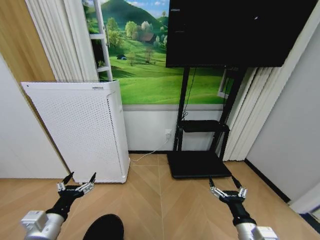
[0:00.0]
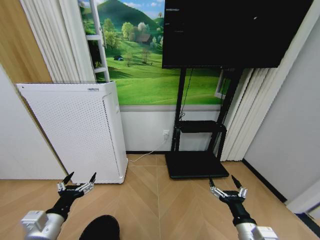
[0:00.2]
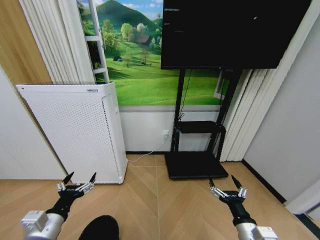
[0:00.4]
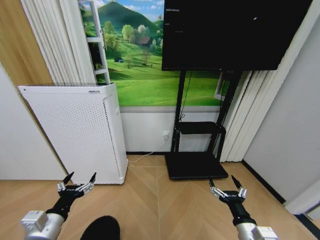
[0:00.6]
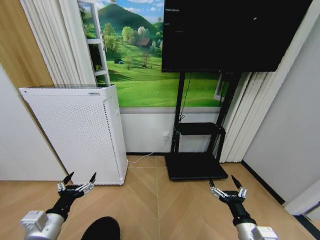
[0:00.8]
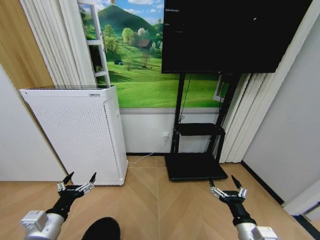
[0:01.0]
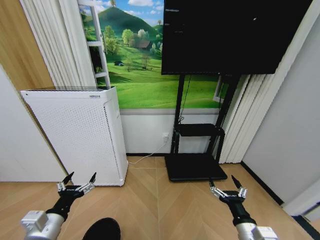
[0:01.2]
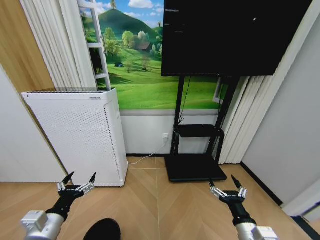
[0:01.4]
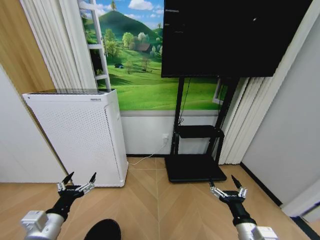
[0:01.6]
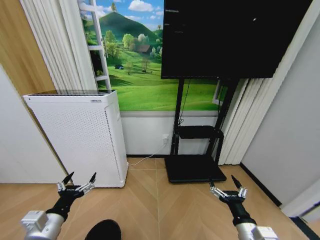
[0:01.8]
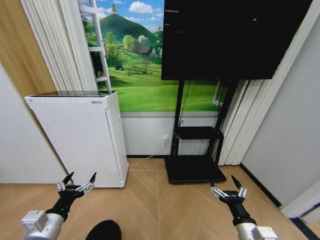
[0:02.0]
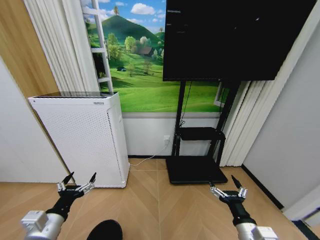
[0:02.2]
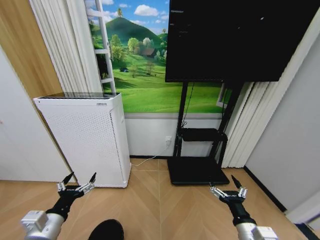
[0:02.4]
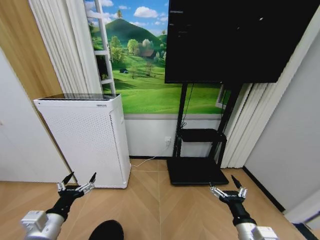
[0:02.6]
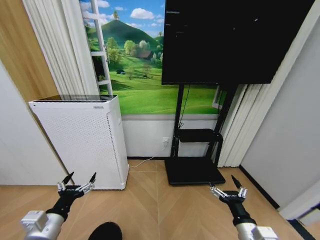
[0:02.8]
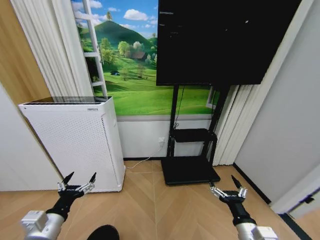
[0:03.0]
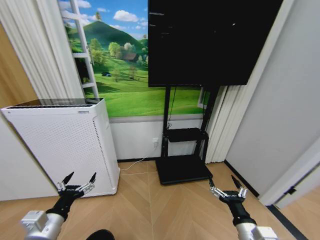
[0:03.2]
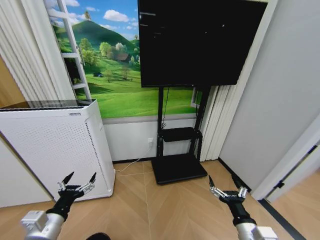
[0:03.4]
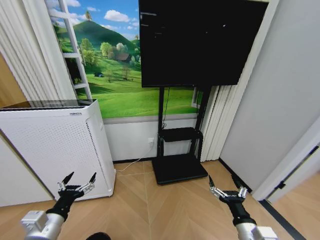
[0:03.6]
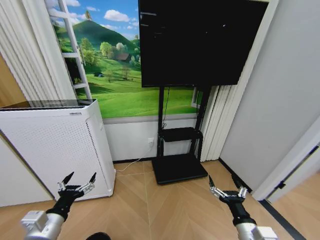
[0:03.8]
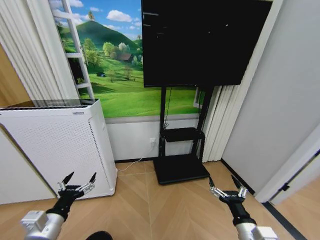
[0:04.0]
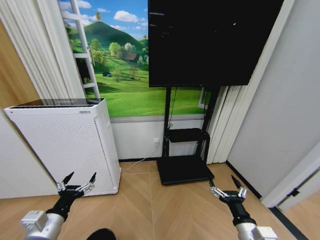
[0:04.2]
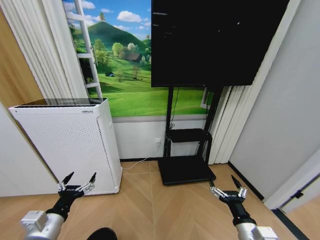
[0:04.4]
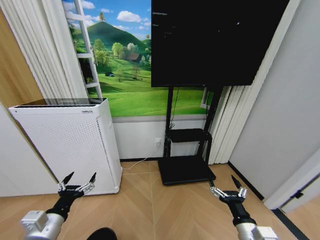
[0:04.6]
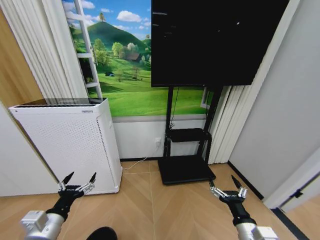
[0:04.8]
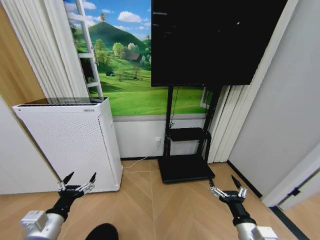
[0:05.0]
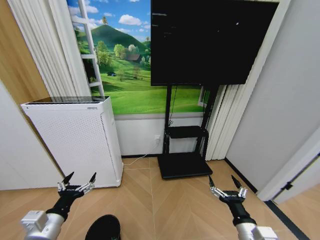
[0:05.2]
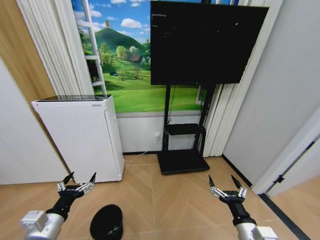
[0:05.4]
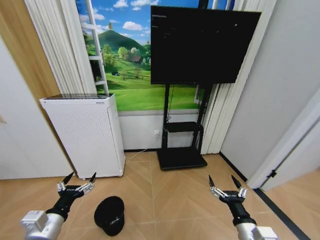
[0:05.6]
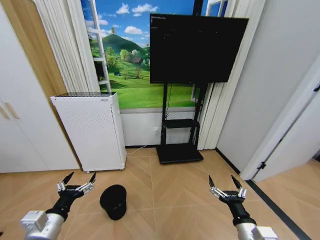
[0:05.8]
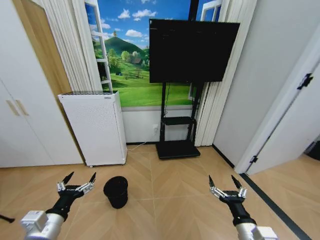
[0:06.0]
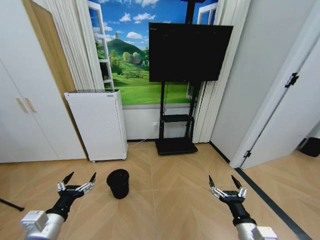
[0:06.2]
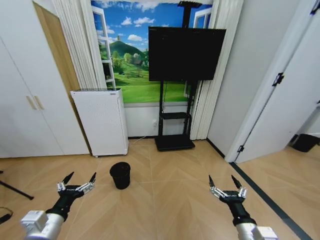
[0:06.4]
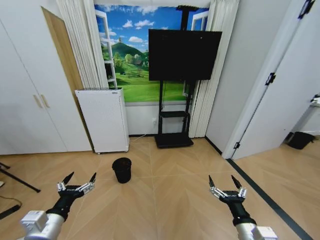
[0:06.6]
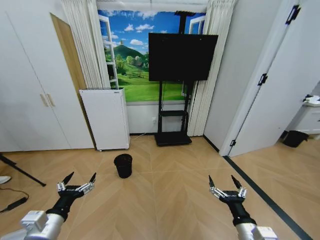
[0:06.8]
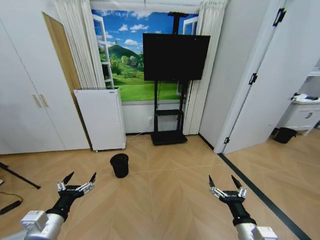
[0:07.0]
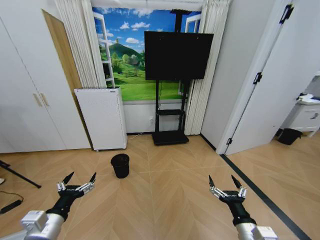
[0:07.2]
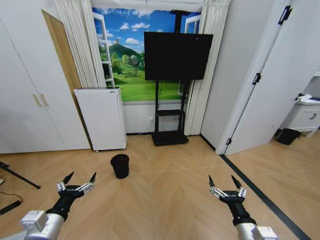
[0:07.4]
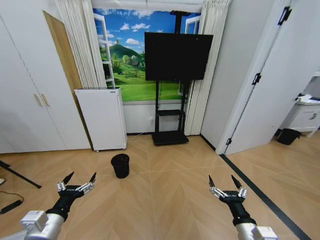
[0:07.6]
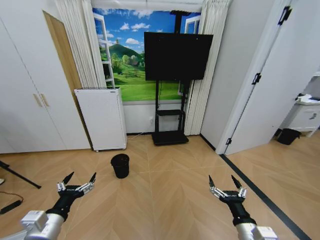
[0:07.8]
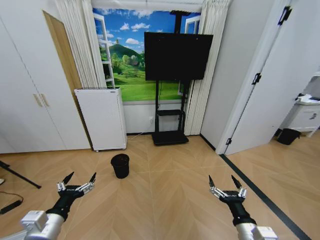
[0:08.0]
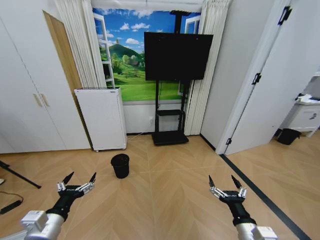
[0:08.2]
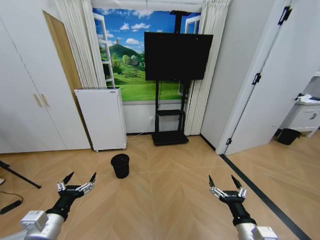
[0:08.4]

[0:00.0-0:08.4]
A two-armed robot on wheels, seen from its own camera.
Task of the whole recording: Pick up the trash bin and place the garbage on the floor into it.
0:01.4 to 0:02.8: Neither gripper changes place.
0:07.0 to 0:08.4: The two grippers keep their place.

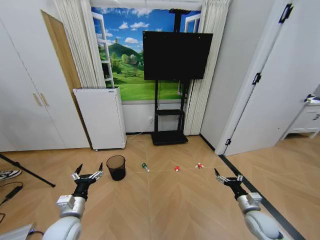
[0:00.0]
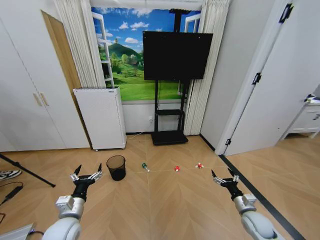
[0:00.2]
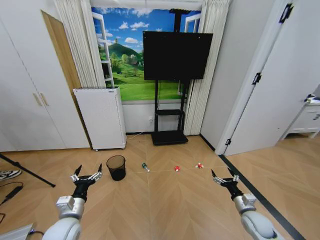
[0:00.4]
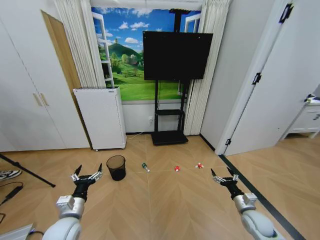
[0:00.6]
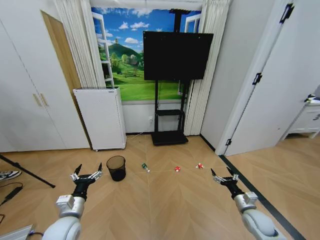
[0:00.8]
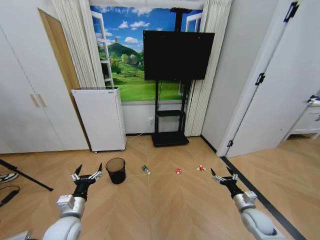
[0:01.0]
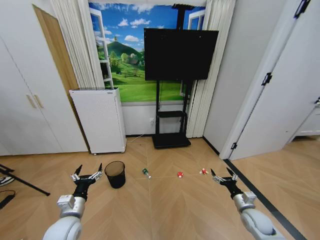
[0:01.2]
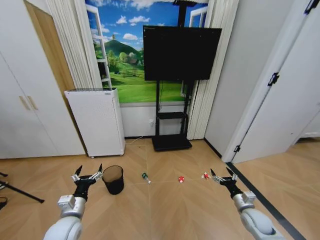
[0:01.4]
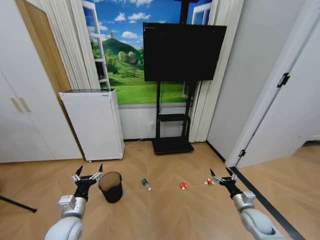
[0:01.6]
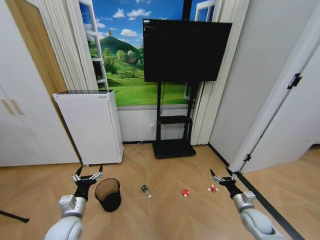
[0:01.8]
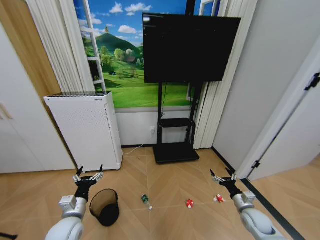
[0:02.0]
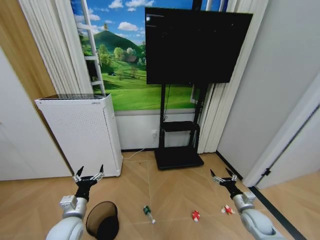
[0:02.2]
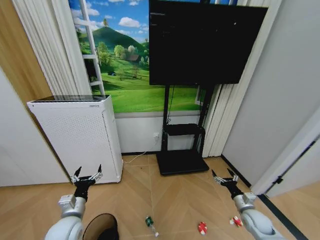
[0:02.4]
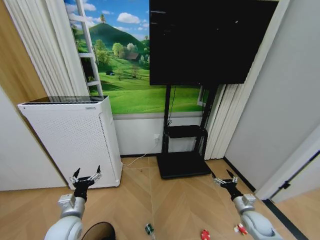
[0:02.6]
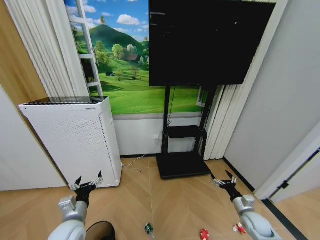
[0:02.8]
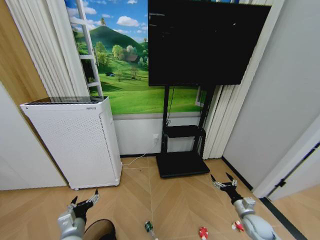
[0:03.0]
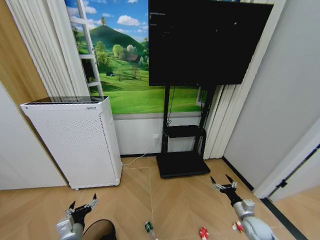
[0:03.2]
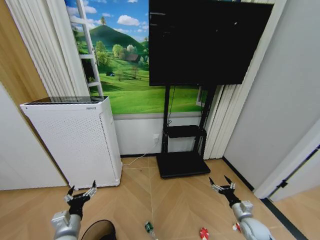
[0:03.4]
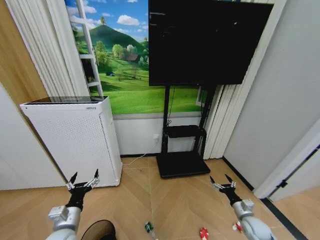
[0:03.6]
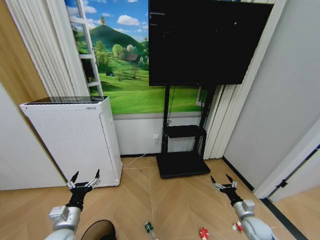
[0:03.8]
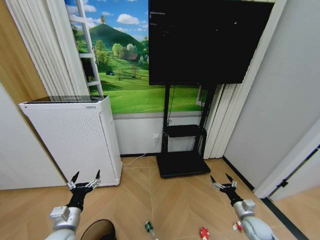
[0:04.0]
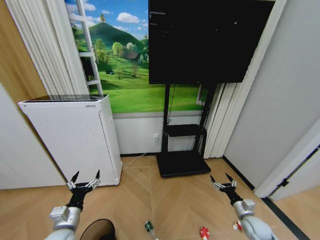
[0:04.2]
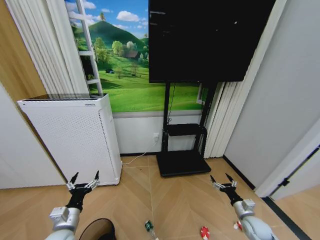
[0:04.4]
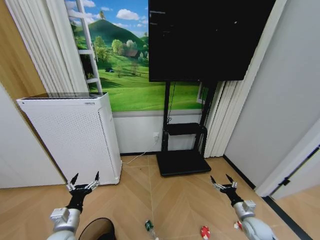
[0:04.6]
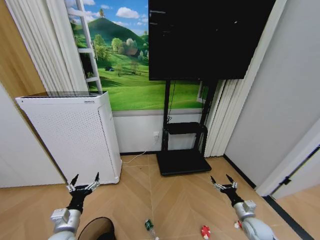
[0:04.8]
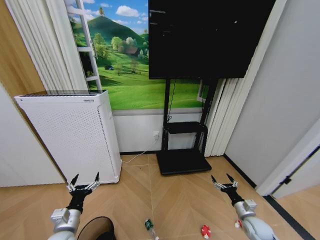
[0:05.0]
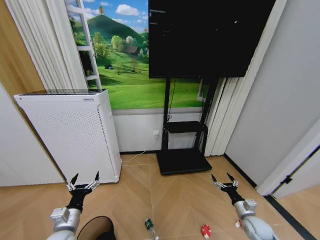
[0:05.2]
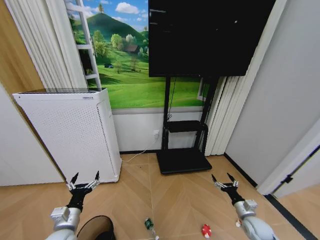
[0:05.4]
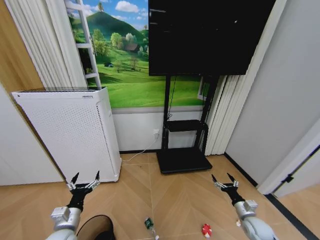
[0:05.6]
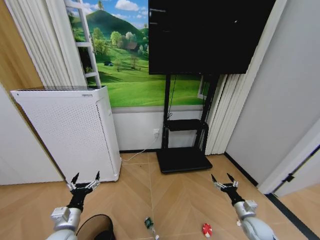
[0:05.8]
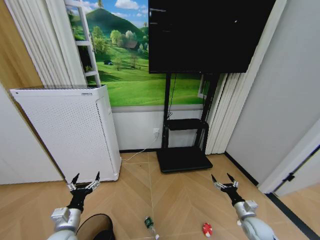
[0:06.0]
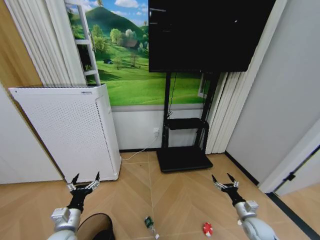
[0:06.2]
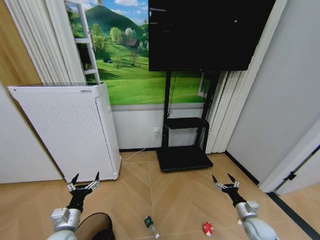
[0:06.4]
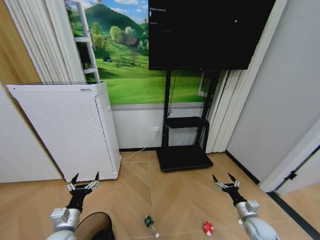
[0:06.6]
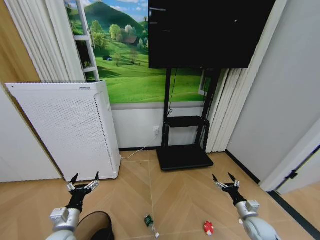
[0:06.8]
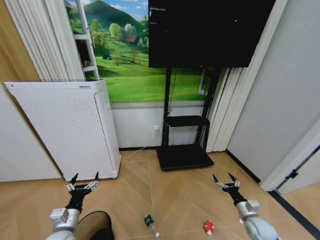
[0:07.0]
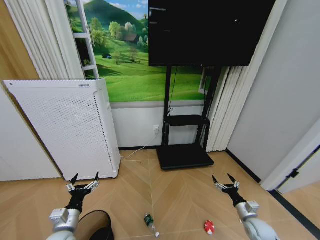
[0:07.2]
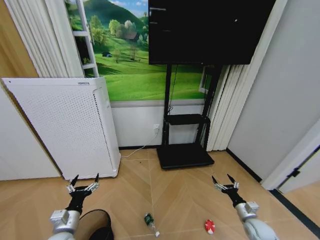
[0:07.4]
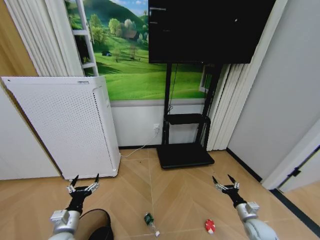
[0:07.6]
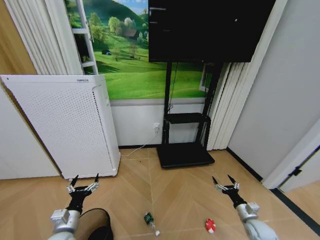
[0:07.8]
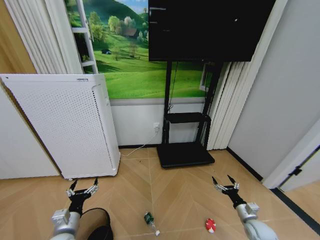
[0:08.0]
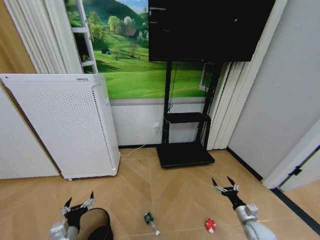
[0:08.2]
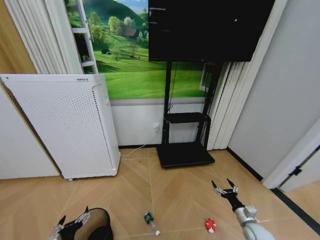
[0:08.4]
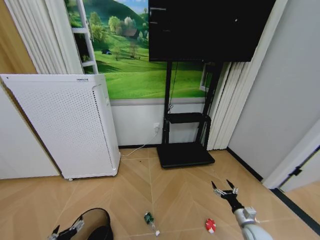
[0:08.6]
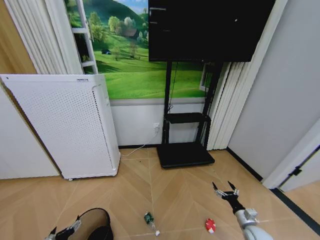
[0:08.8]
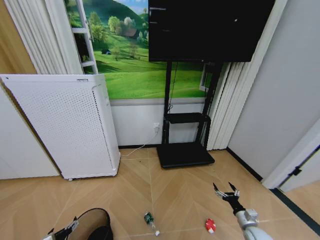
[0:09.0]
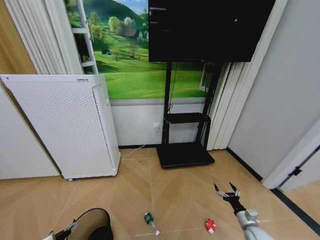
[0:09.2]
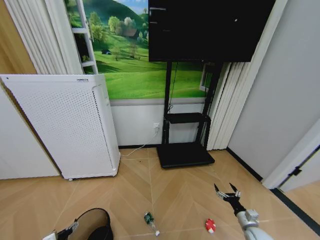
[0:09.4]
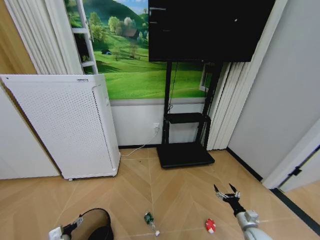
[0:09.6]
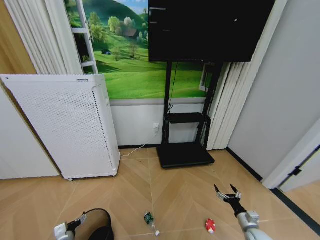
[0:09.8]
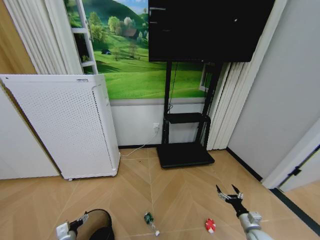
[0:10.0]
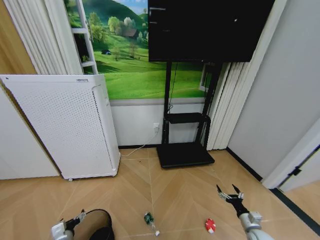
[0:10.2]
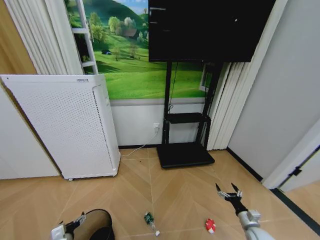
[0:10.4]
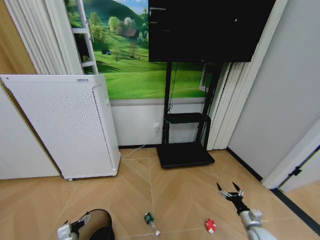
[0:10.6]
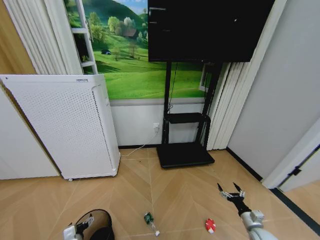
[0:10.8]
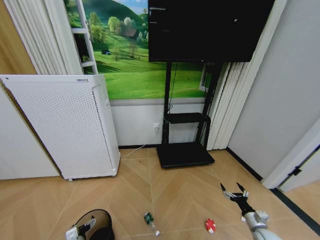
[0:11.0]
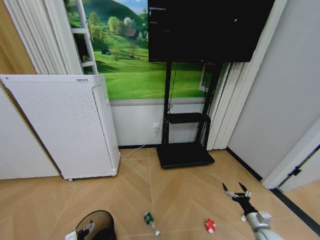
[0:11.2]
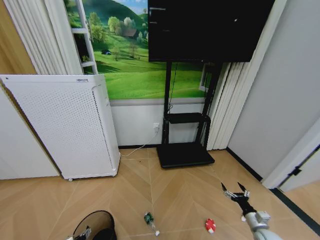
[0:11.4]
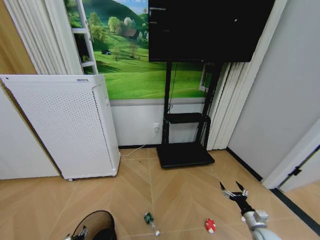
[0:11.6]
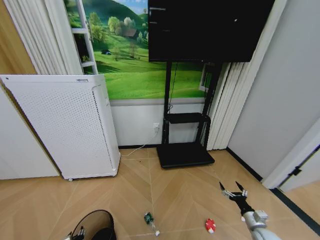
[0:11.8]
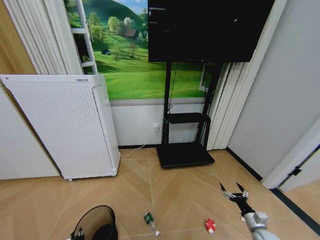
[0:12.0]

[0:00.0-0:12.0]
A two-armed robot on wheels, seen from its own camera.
Task of the whole recording: Pick up the trash bin and place the garbage on the floor into it.
0:04.4 to 0:06.0: The two grippers keep their place.
0:06.0 to 0:07.6: Both grippers stay put.
0:07.6 to 0:09.0: The left gripper heads downward, covering some 10 cm.
0:10.4 to 0:12.0: The left gripper is displaced downward by roughly 5 cm, and closes its fingers.

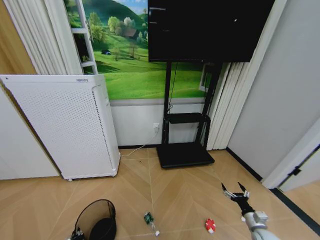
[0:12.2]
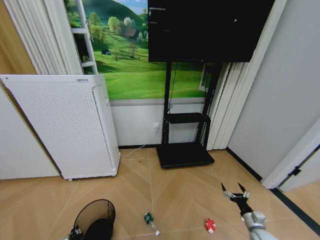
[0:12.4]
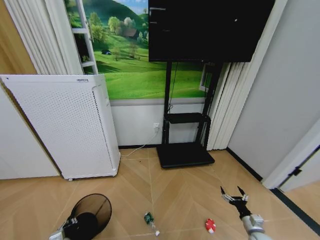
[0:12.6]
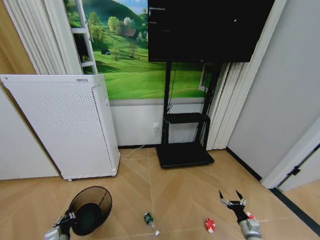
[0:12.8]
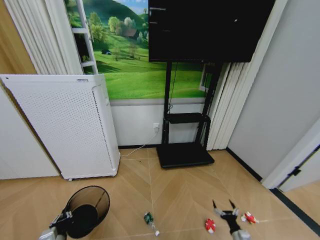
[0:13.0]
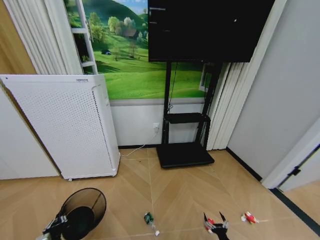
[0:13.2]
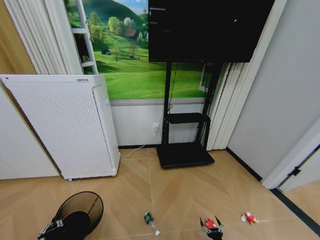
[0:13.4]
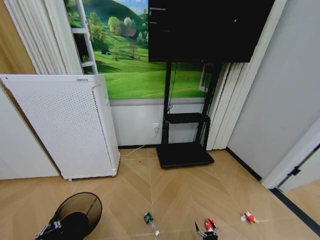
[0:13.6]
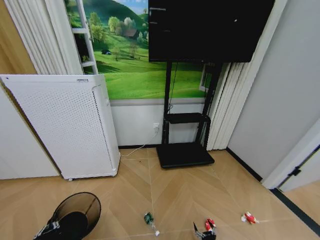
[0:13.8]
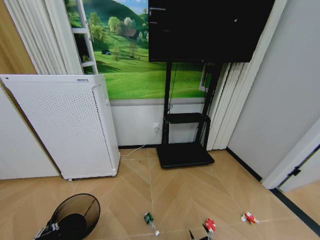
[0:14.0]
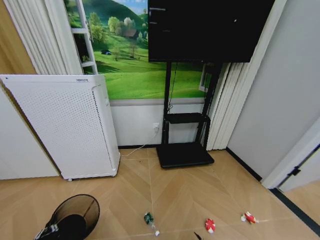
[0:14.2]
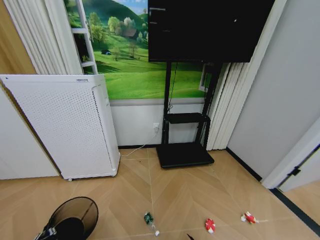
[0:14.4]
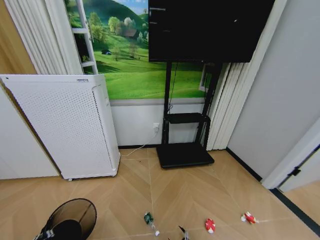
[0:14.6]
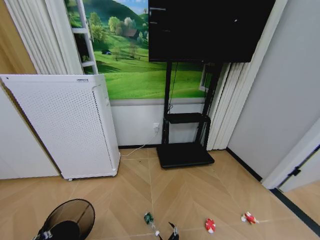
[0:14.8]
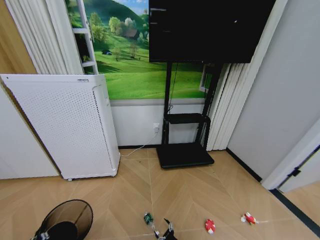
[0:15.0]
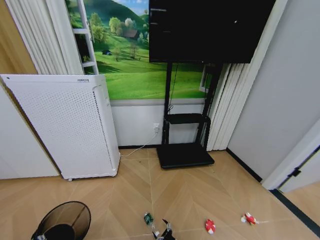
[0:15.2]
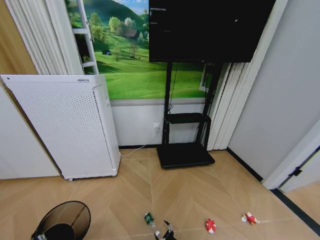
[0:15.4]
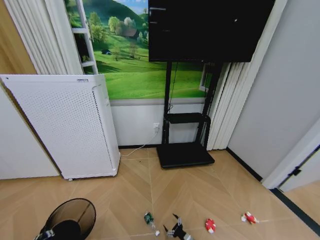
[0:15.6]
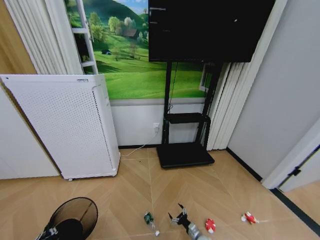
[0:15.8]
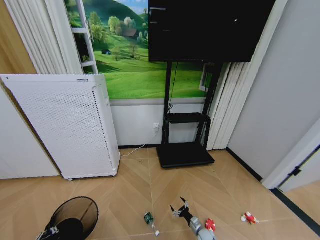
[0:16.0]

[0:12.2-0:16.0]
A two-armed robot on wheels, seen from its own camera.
Task of the whole recording: Pick up the trash bin and place the garbage on the floor into it.
0:12.2 to 0:13.4: The right gripper goes approximately 25 cm downward, to the left and backward; the left gripper heads upward, covering roughly 10 cm.
0:13.4 to 0:14.8: The right gripper is displaced to the left by about 15 cm.
0:14.8 to 0:16.0: The right gripper travels forward and to the right by some 15 cm.
